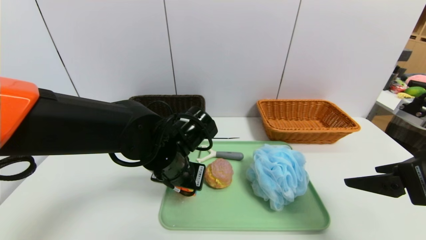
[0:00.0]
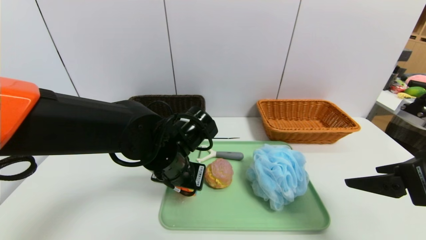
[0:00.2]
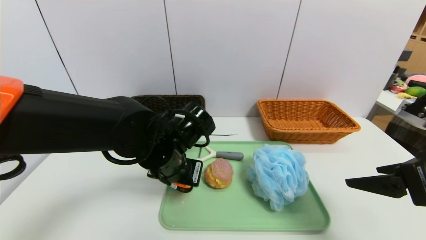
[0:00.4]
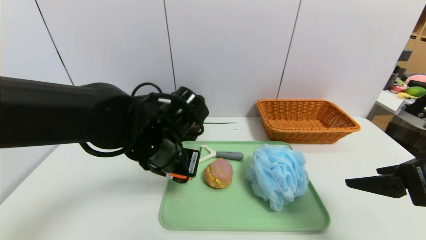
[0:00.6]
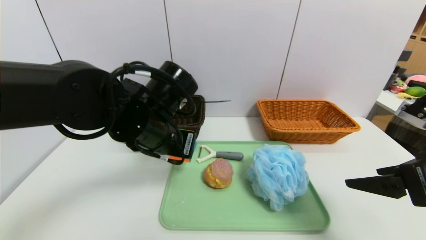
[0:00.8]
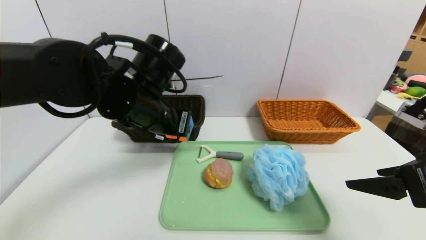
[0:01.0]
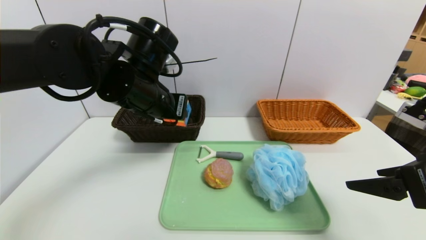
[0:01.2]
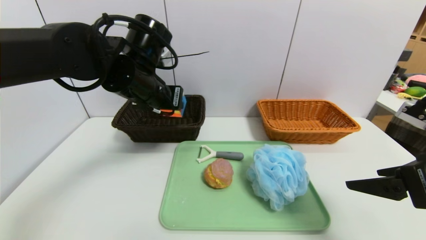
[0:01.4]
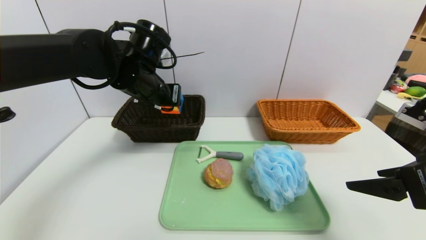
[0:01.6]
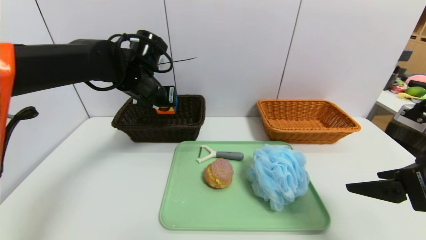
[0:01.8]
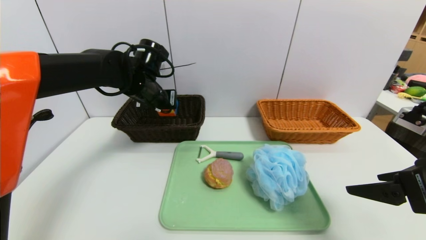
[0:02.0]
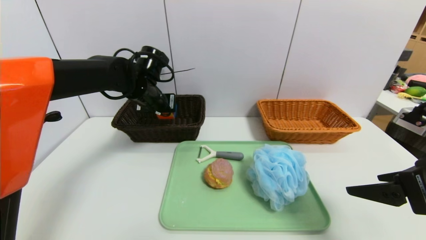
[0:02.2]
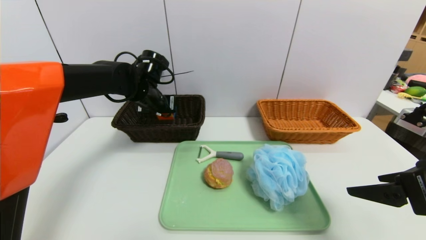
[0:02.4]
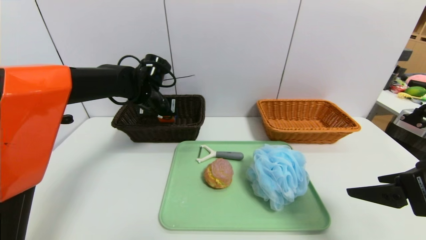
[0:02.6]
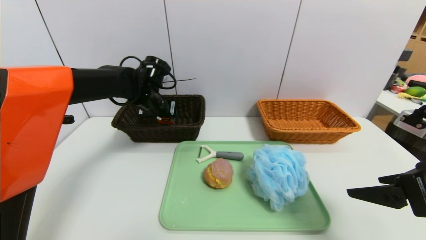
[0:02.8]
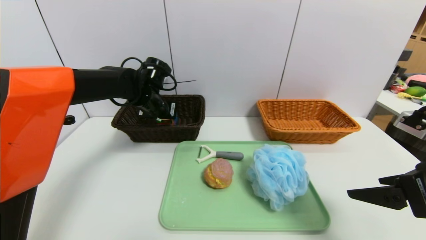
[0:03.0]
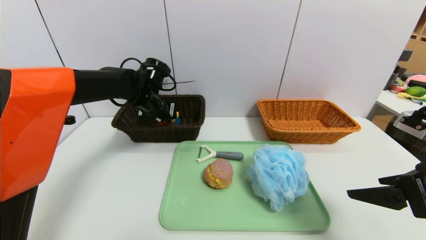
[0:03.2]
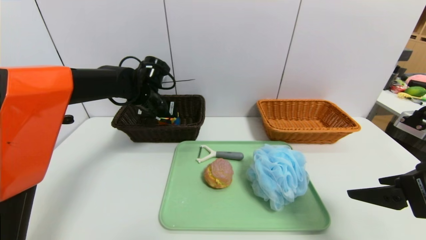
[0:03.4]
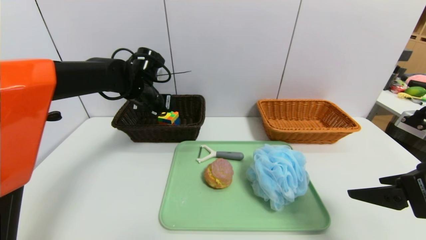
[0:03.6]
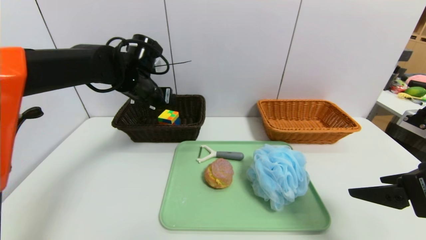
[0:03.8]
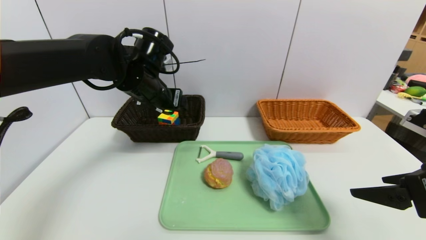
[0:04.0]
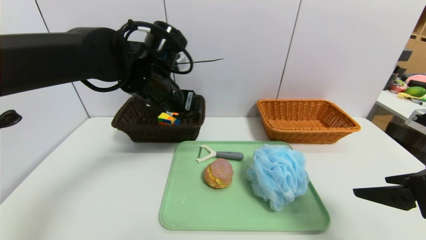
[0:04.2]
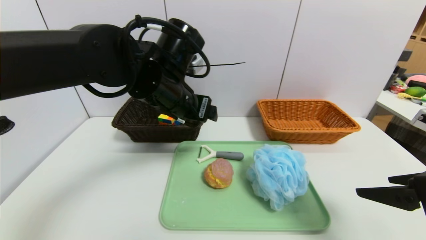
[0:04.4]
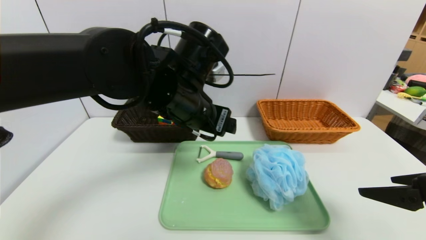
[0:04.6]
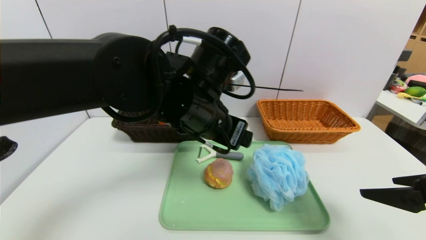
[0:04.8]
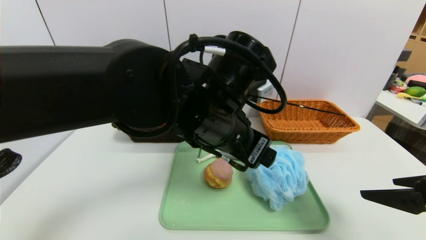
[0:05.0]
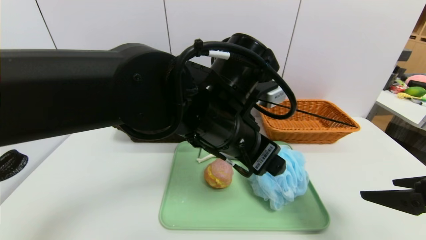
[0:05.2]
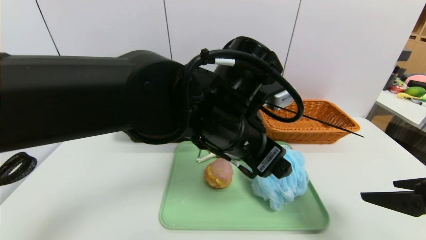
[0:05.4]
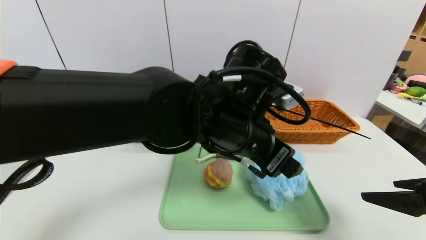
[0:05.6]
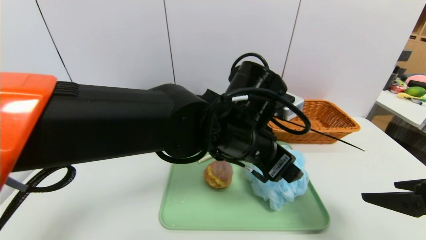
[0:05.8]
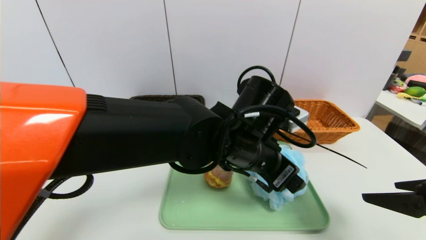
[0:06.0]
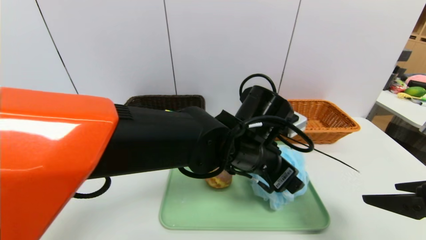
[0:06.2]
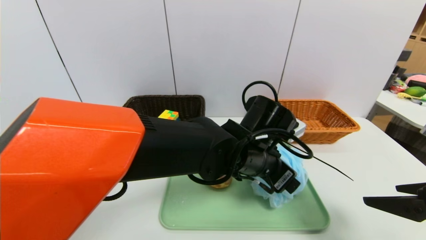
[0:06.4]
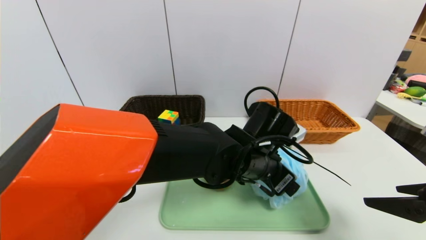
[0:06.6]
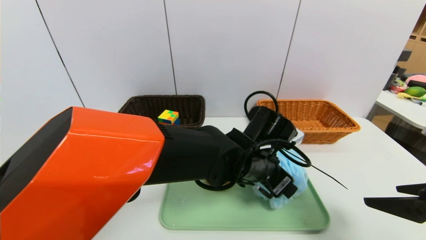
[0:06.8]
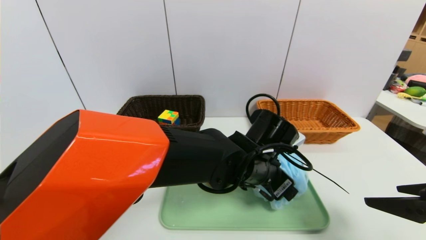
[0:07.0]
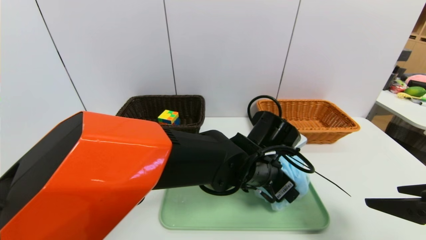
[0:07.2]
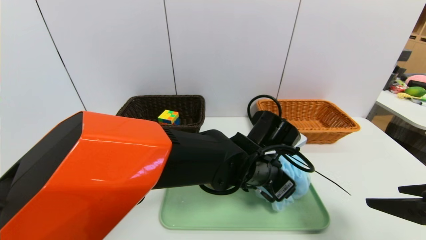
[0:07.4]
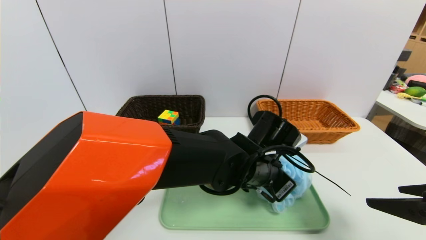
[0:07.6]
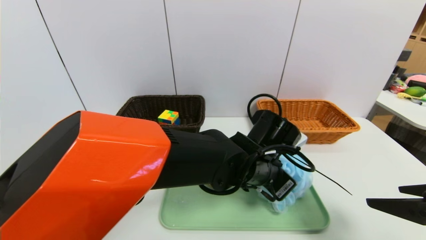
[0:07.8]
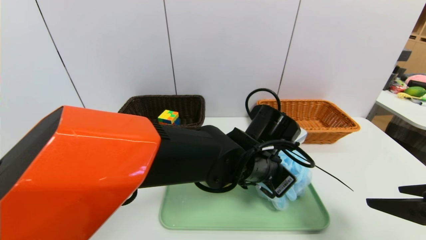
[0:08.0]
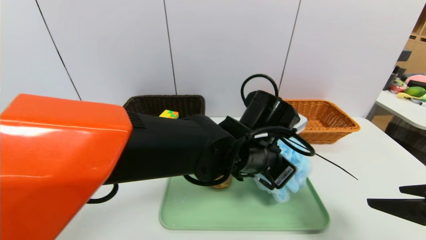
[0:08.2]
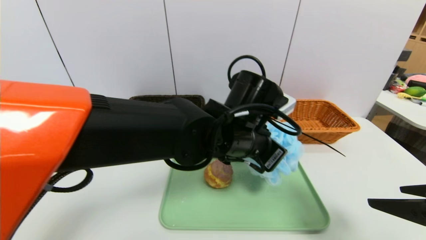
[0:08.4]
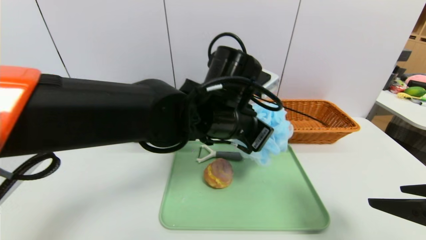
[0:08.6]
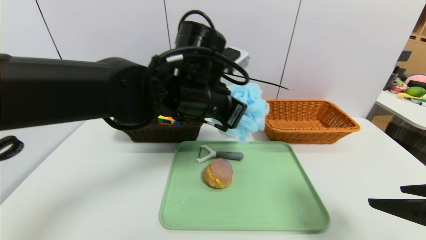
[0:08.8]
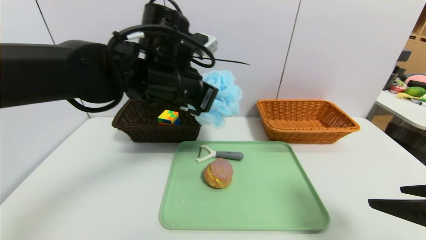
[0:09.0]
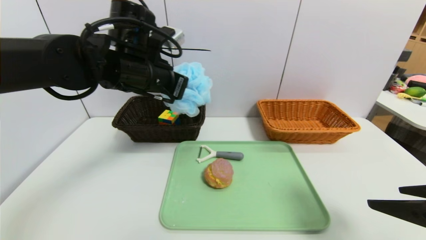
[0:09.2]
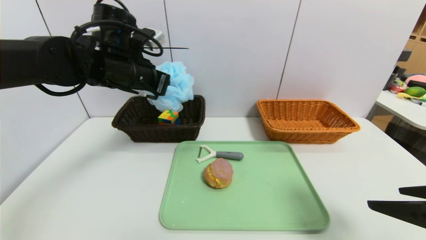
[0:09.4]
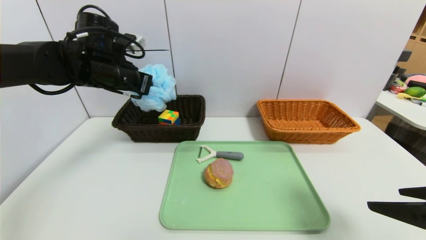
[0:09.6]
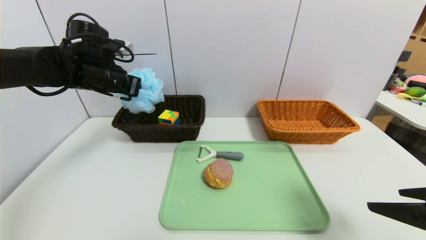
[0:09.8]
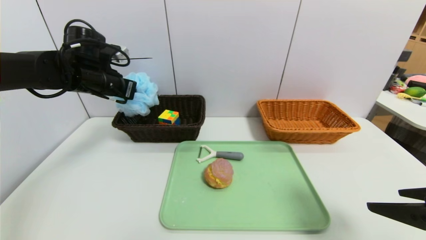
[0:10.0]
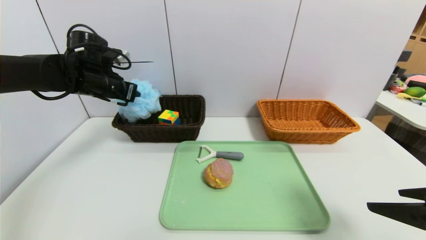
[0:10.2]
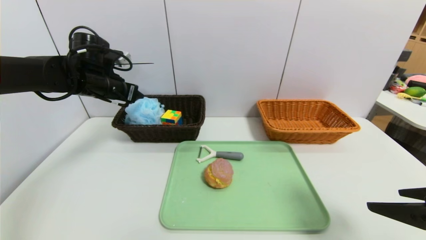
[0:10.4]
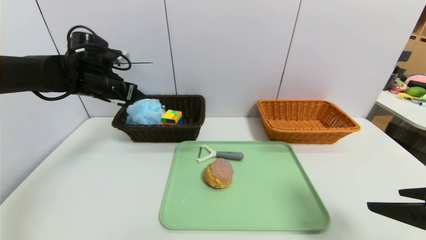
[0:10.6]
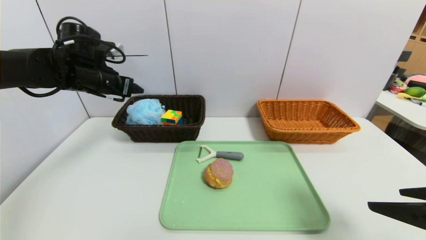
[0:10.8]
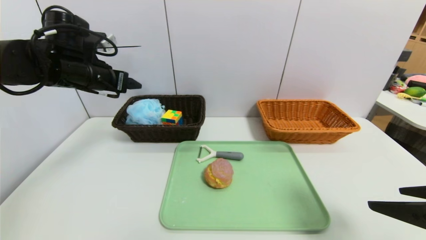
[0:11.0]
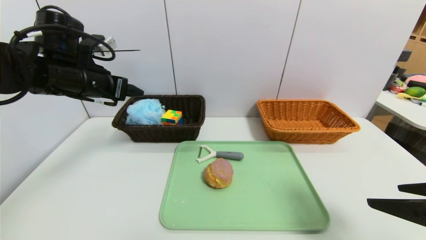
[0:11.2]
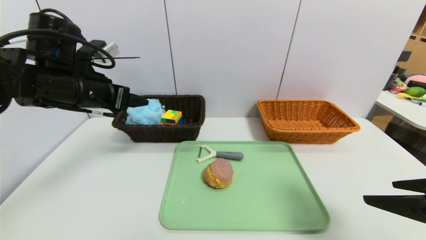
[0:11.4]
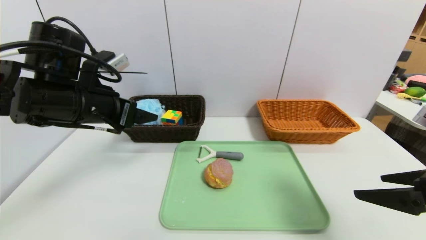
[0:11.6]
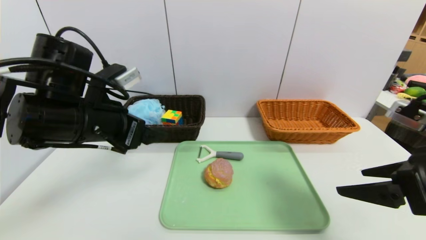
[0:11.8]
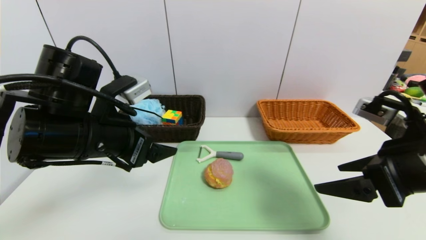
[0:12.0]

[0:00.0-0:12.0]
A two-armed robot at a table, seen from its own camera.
Task of the whole recording: place the food in the right basket with the right gripper, and place the non food items in the left basket with the left gripper.
Step, 0.0 to 4.2 s: Grasp the rubiks cube and put it in the left basket.
Step, 4.4 to 11.2 s: Grasp the bath ball and put it in the left basket.
0.0 to 1.6 s: The left gripper heads upward, forward and to the left, covering roughly 15 cm.
1.6 to 3.0 s: The left gripper shifts approximately 10 cm forward and downward.
3.0 to 4.4 s: The left gripper moves backward, to the right and upward, some 15 cm, and opens its fingers.
4.4 to 6.0 s: The left gripper moves to the right, downward and backward, some 15 cm.
6.0 to 7.6 s: The left gripper is displaced downward by some 5 cm, and closes.
7.6 to 9.0 s: The left gripper shifts about 20 cm to the left and upward, and closes.
9.0 to 10.4 s: The left gripper is displaced to the left and forward by about 20 cm, and opens up.
10.4 to 12.0 s: The right gripper shifts approximately 10 cm forward and to the left. Meanwhile the left gripper is displaced backward and to the right by about 20 cm, and opens its fingers.

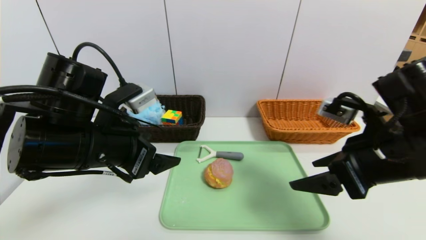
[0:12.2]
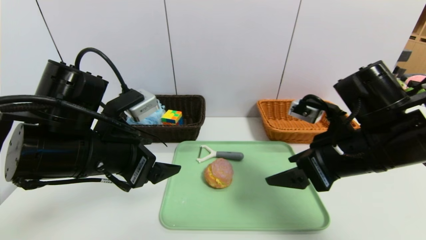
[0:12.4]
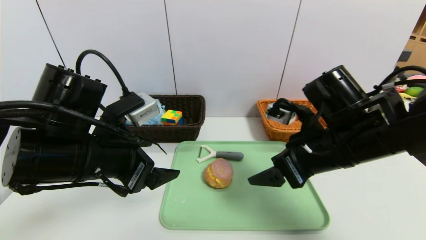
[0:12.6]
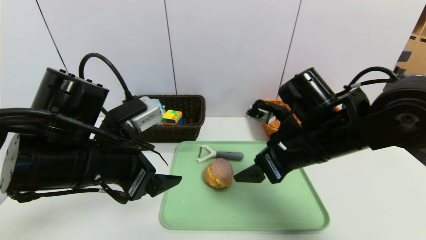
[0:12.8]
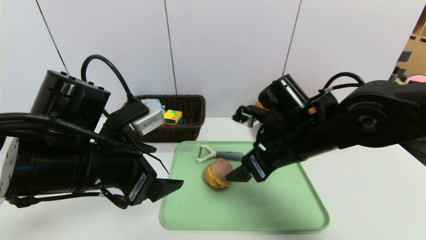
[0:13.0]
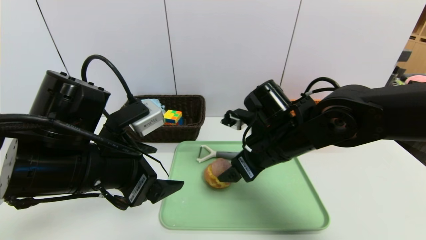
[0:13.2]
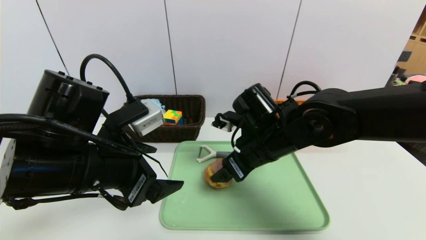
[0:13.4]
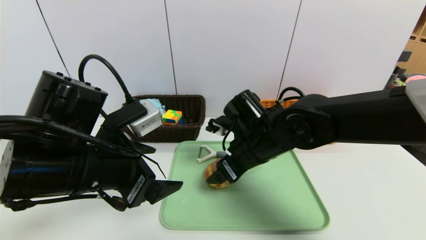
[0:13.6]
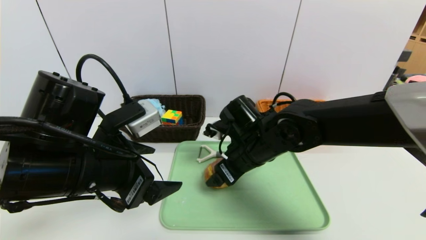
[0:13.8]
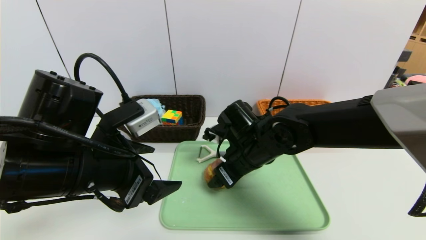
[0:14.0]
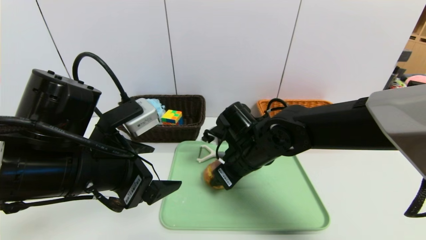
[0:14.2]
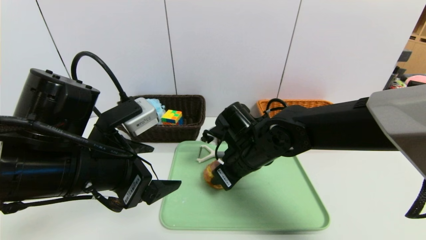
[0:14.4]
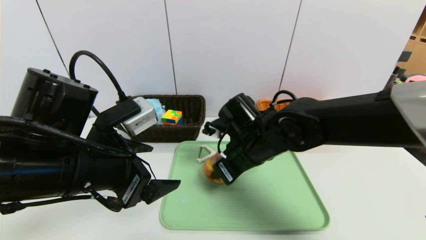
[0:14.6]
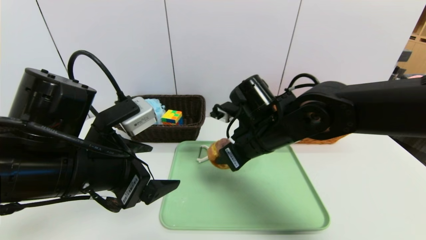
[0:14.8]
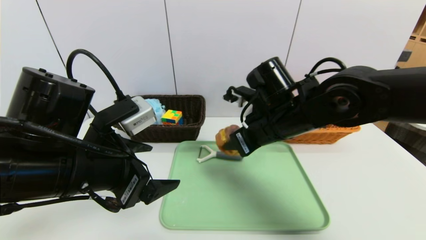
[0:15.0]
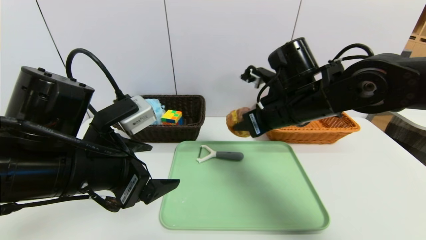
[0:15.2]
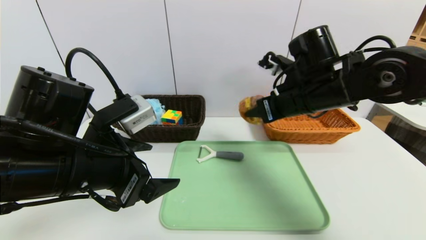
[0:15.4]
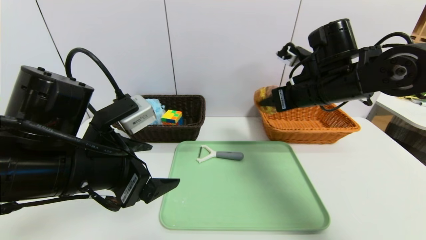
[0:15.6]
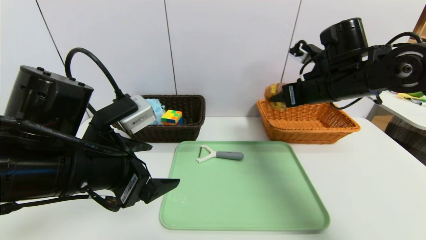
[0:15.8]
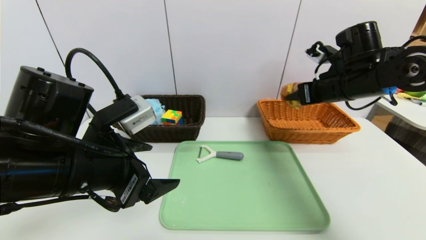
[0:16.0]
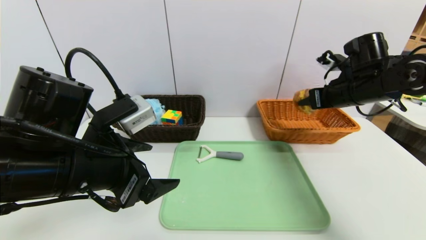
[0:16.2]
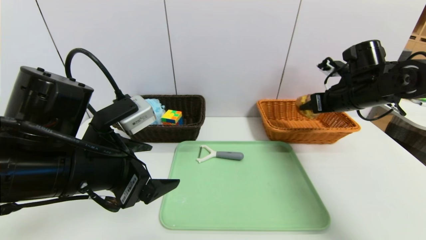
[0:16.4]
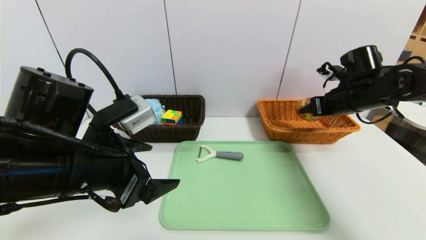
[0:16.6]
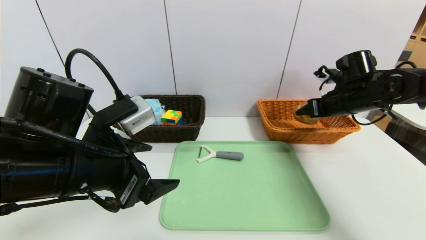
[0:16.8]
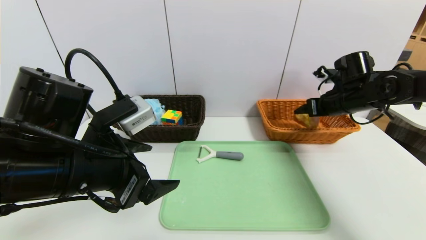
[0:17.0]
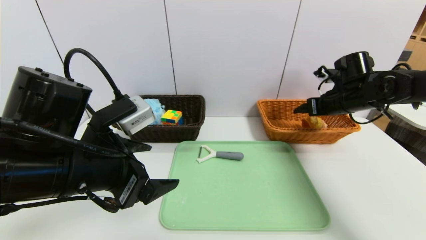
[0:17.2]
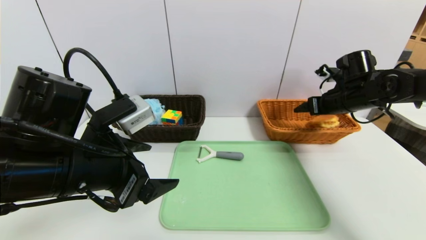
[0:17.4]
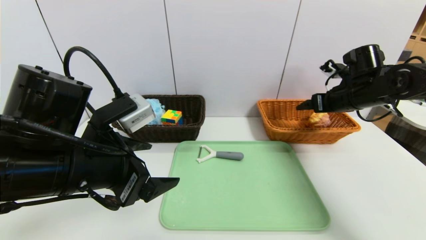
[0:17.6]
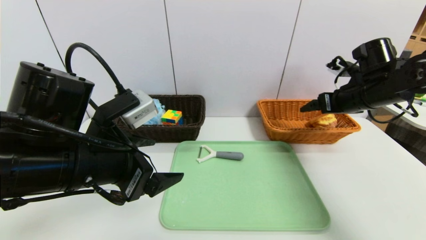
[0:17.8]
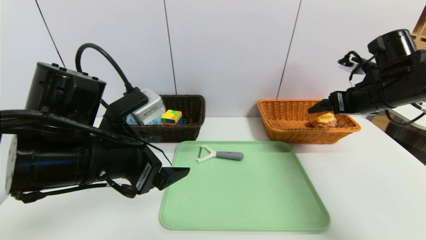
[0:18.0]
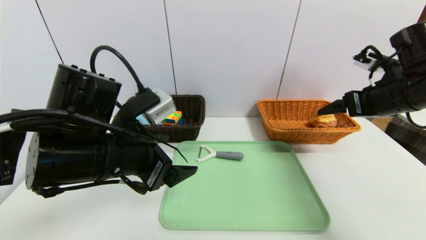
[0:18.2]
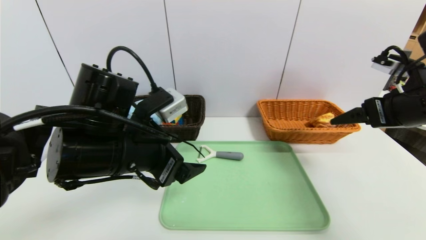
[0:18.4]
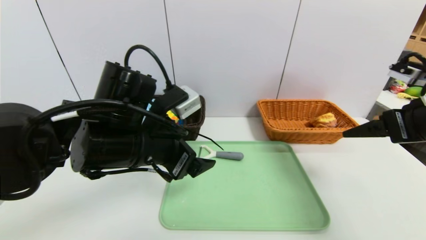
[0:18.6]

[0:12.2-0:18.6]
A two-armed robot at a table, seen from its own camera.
Task of the whole recording: place the food in the right basket with the right gripper, and place the non food items in the left basket with the left gripper.
Step, 12.2 to 17.8 s: Grasp the round bread and put it in the right basket.
12.2 to 13.8 s: The right gripper moves to the left, forward and downward, roughly 20 cm.
13.8 to 15.4 s: The right gripper shifts about 15 cm upward and to the right, and closes up.
15.4 to 17.0 s: The right gripper shifts approximately 15 cm to the right and forward, and opens its fingers.
17.0 to 18.6 s: The right gripper travels backward by roughly 20 cm. Meanwhile the left gripper travels to the right and forward by some 10 cm.
